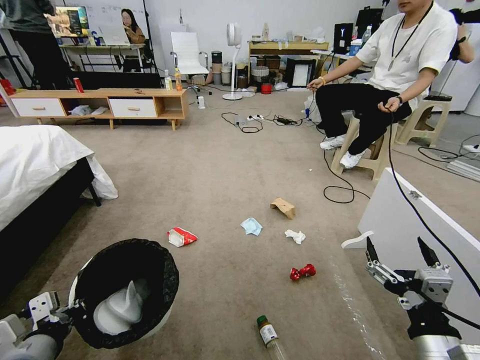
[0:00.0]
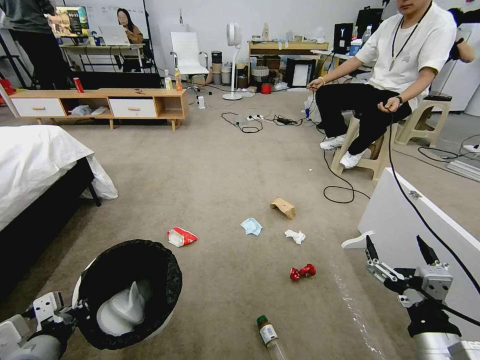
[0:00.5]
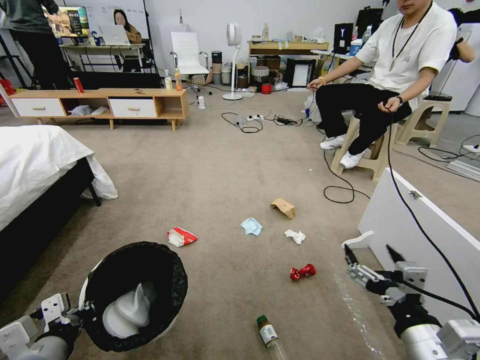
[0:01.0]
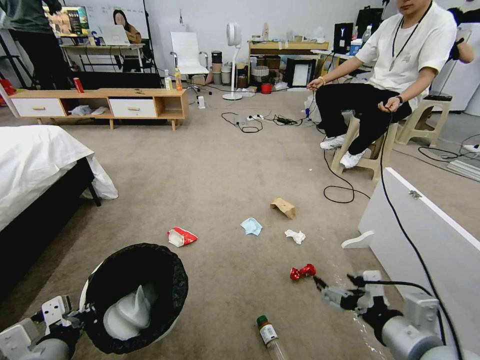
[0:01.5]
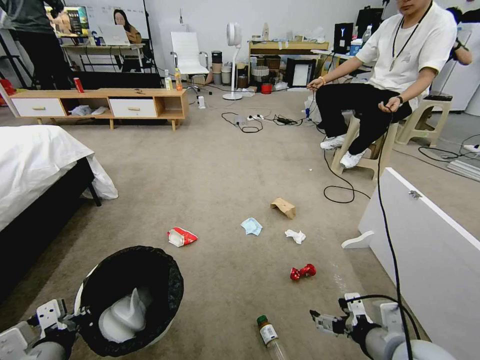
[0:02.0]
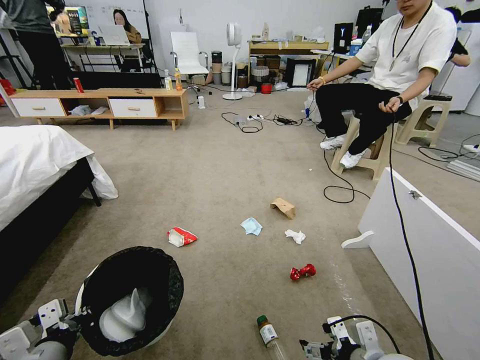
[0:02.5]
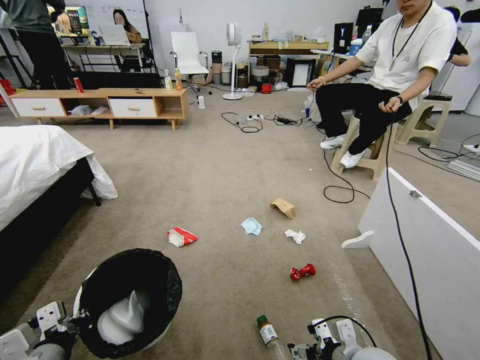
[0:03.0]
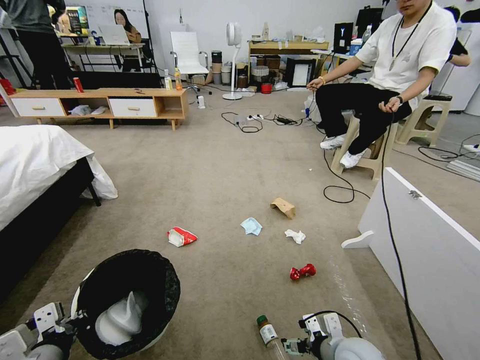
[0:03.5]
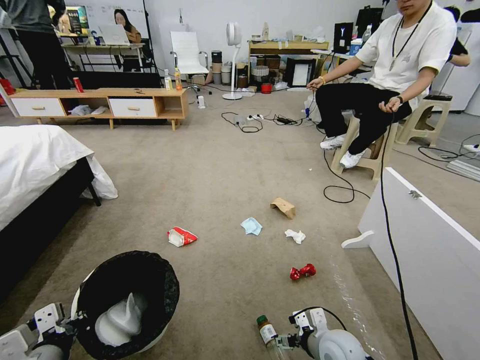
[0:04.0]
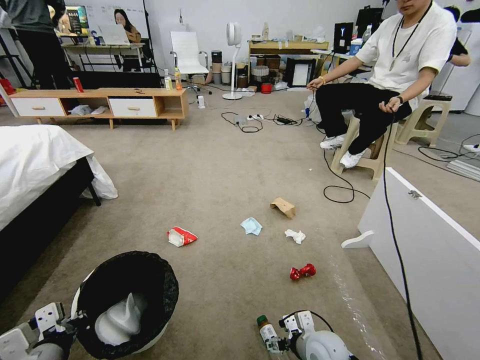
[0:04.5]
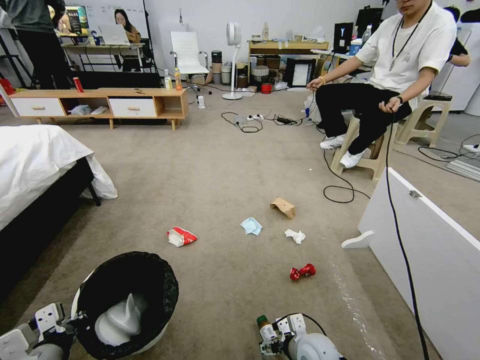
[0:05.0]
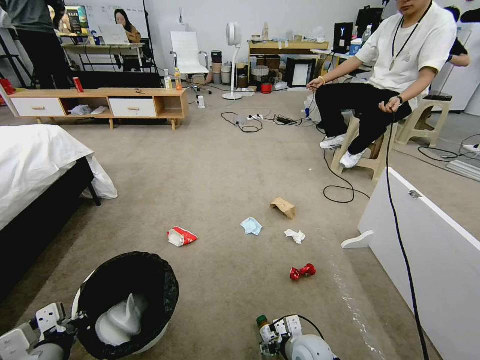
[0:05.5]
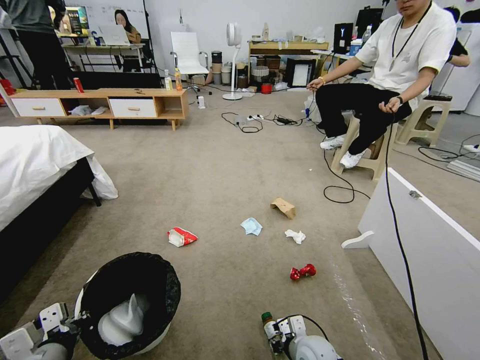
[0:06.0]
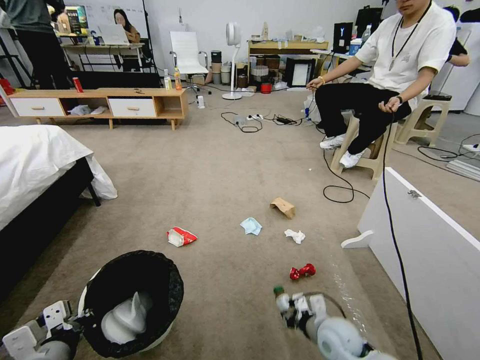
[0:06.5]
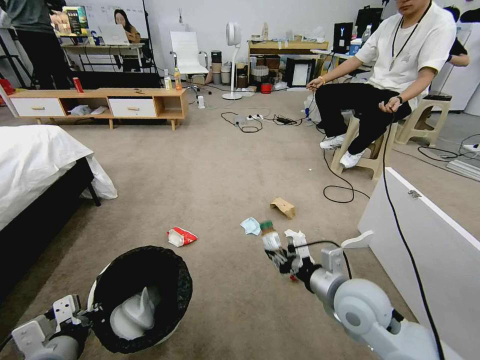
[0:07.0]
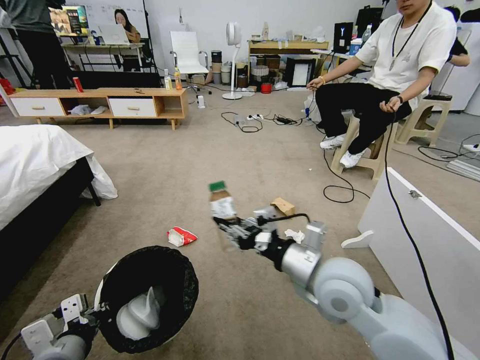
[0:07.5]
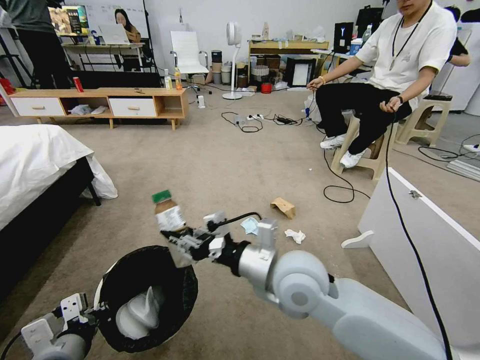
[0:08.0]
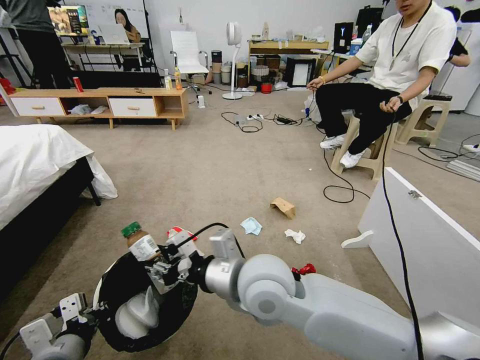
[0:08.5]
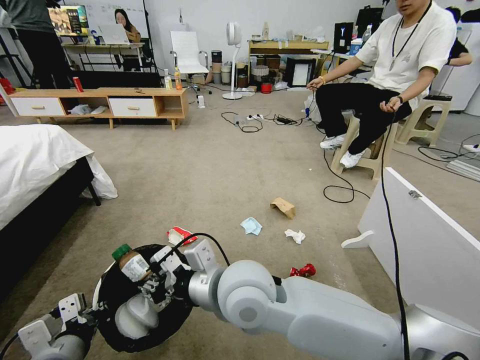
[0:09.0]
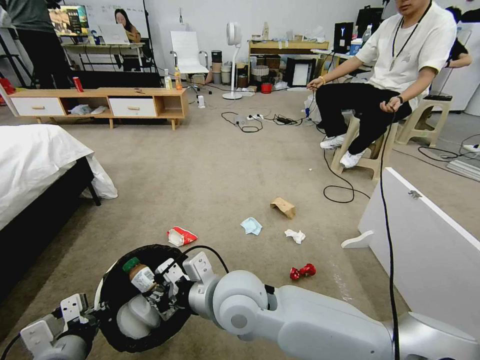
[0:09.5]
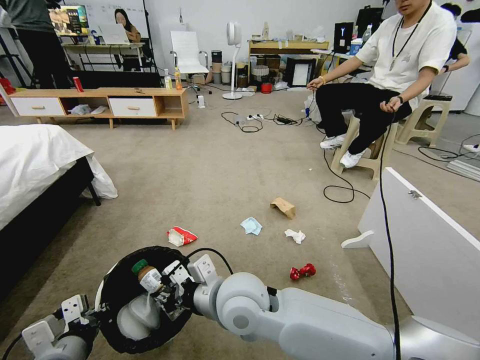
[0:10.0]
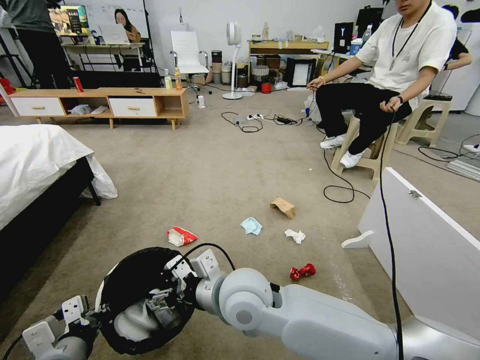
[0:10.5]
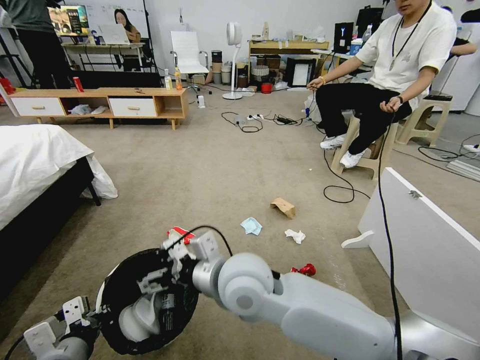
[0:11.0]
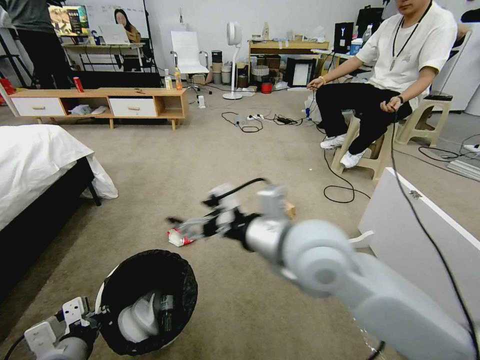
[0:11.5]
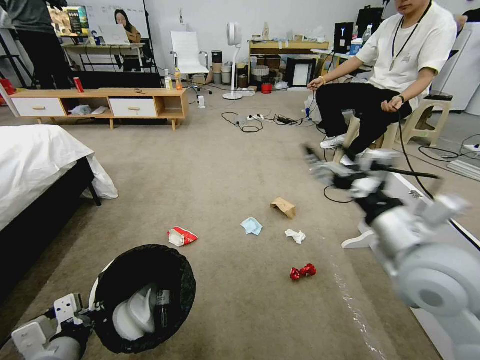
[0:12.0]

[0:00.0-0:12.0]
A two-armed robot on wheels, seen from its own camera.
Task of the whole recording: Pick up the trash bin and place the garbage on the floor into it.
0:02.0 to 0:04.0: The right gripper heads downward, forward and to the left, covering some 20 cm.
0:04.0 to 0:06.0: The right gripper heads downward, covering some 5 cm, and closes.
0:06.0 to 0:08.0: The right gripper travels upward by about 35 cm.
0:08.0 to 0:10.0: The right gripper moves to the left, some 10 cm.
0:10.0 to 0:12.0: The right gripper is displaced to the right and upward by roughly 30 cm, and opens its fingers.

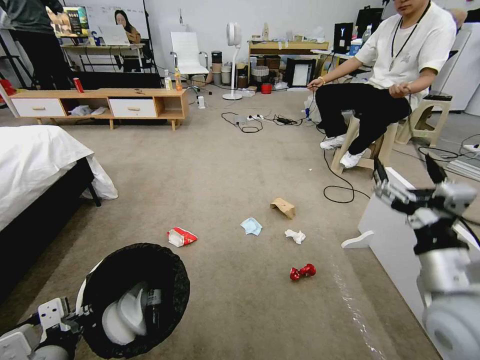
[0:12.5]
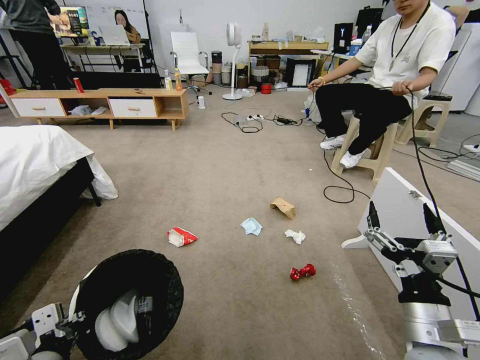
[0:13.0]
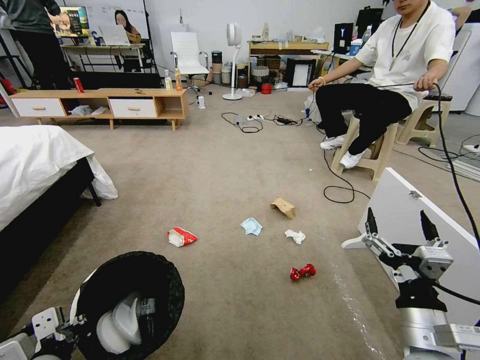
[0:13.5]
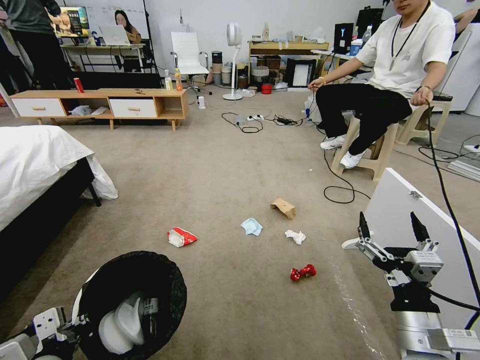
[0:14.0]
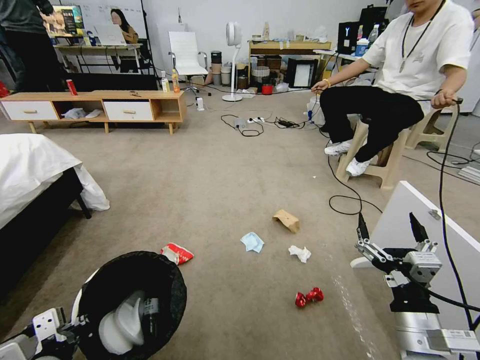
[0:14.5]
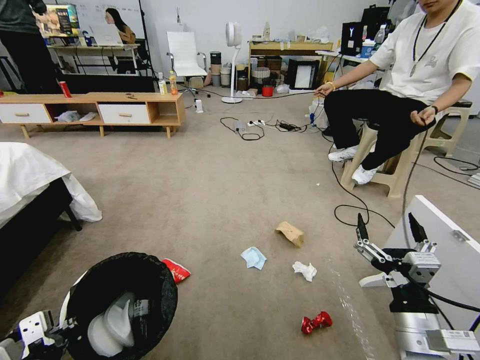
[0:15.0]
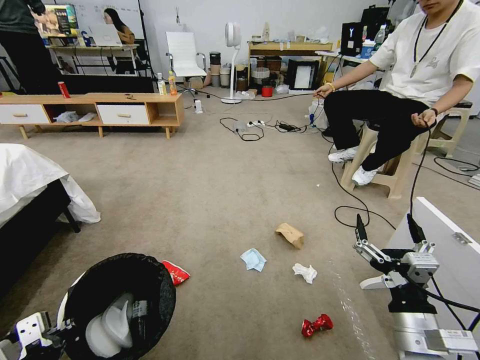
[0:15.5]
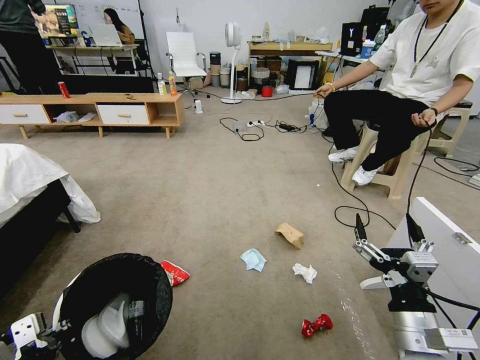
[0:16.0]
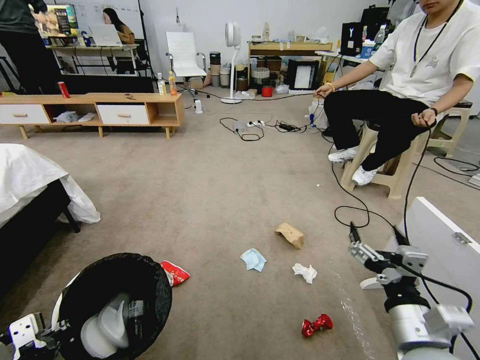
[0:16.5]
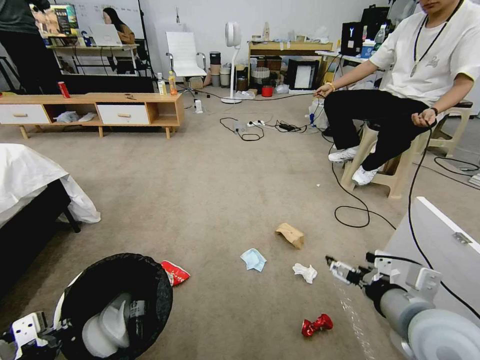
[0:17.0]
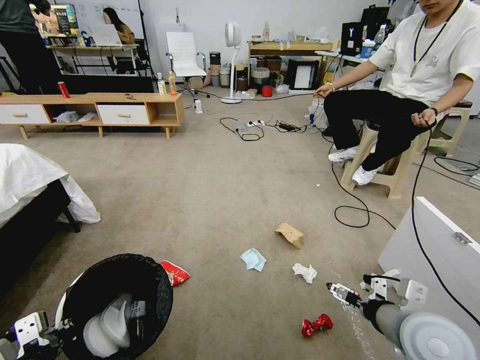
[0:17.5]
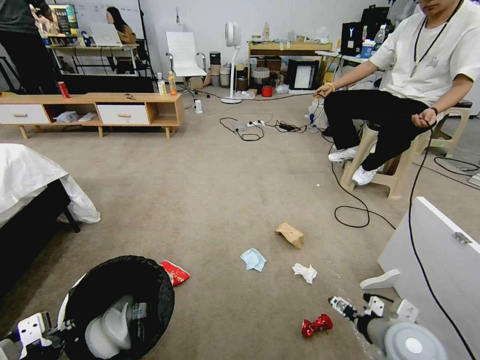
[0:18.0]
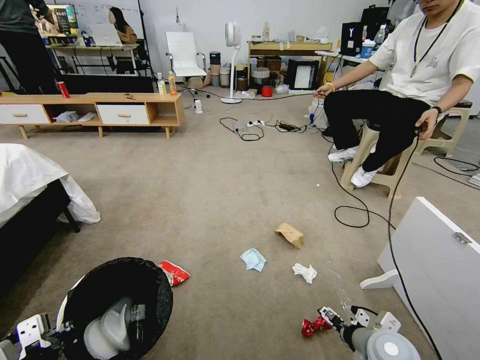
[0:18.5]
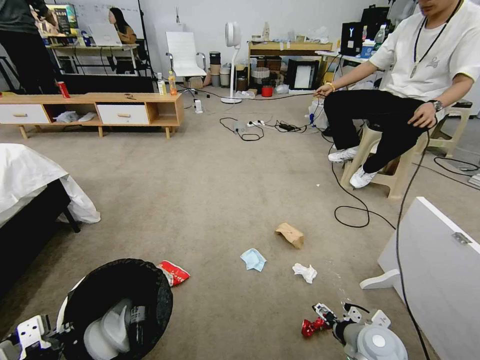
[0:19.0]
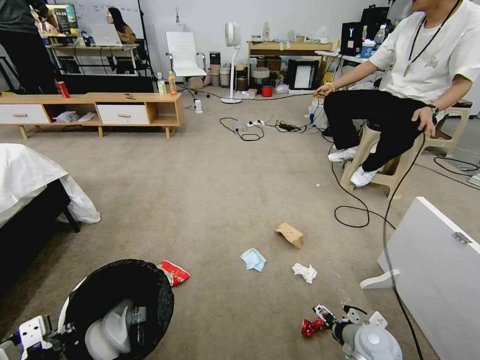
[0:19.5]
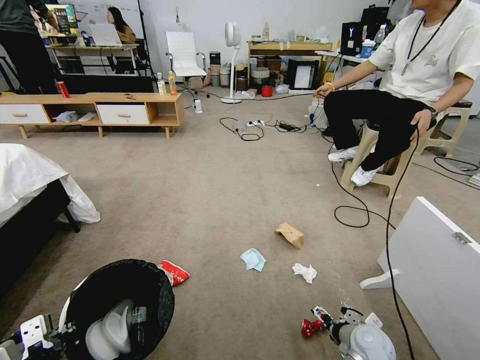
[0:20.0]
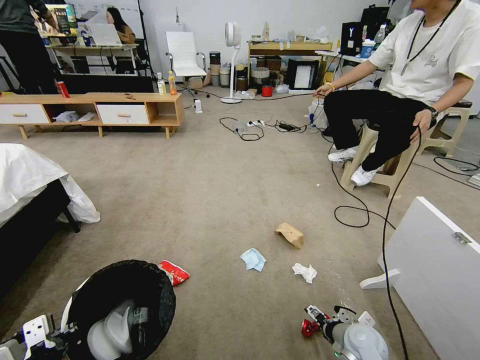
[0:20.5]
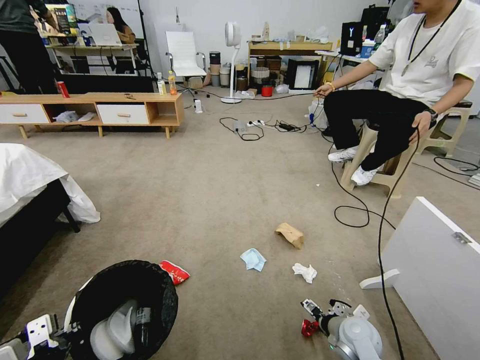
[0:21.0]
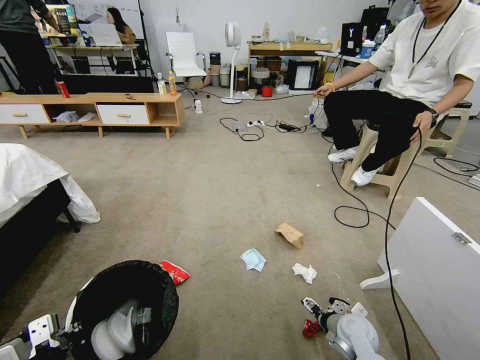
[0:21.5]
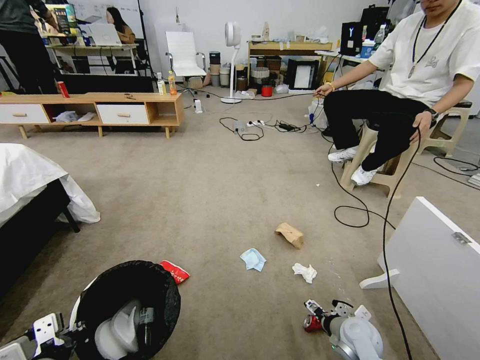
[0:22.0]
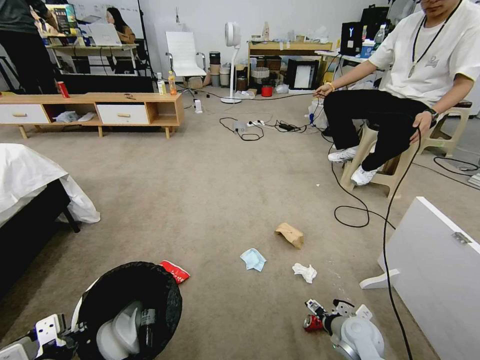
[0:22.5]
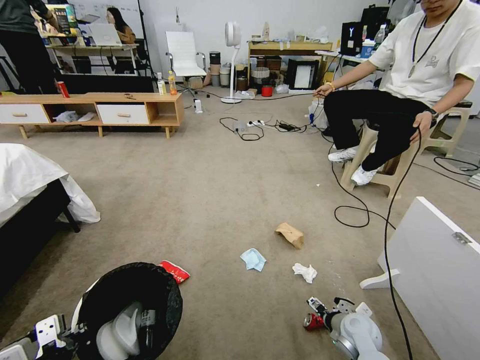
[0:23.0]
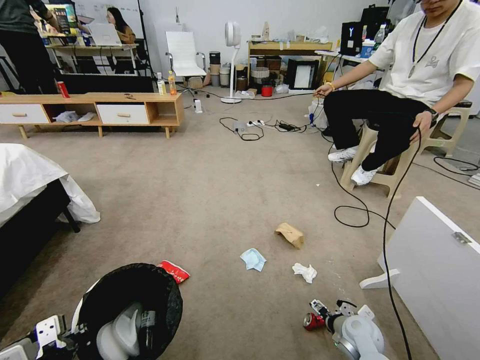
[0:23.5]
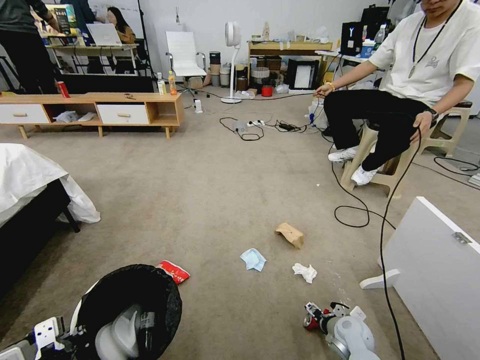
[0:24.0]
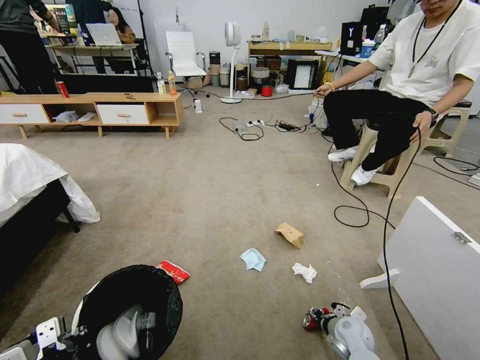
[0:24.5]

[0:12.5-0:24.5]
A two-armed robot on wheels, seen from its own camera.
Task of the whole recording: Pick up the trash bin and place the garbage on the floor into it.
0:12.5 to 0:14.5: The right gripper goes approximately 10 cm downward.
0:16.5 to 0:18.5: The right gripper goes some 15 cm downward and forward.
0:18.5 to 0:20.5: The right gripper heads downward, covering some 10 cm.
0:20.5 to 0:22.5: The grippers stay close to where they were, moving slightly.
0:22.5 to 0:24.5: The right gripper closes its fingers.

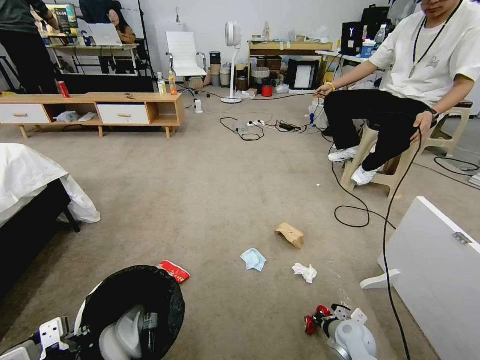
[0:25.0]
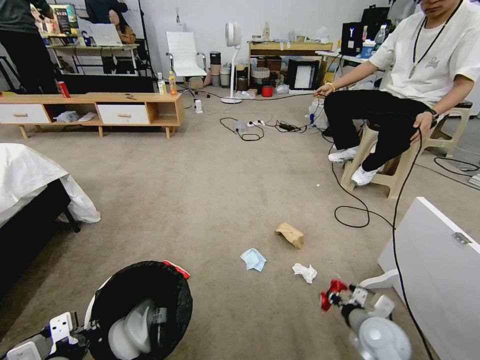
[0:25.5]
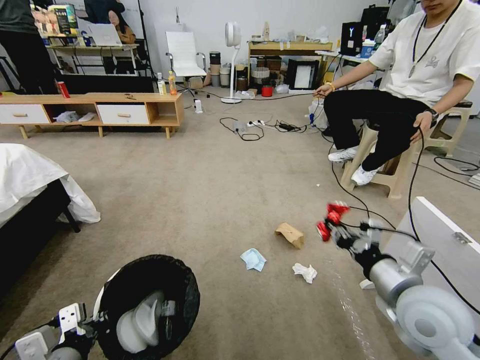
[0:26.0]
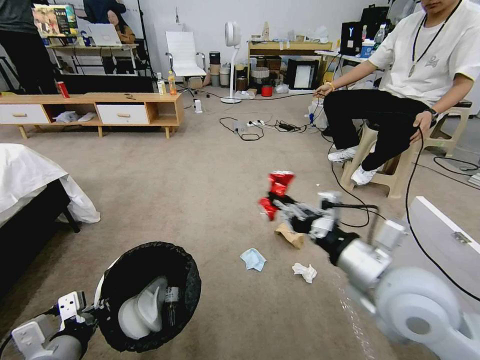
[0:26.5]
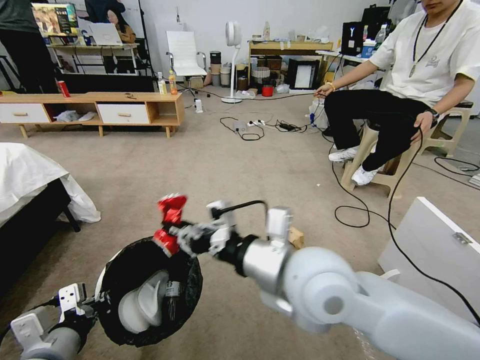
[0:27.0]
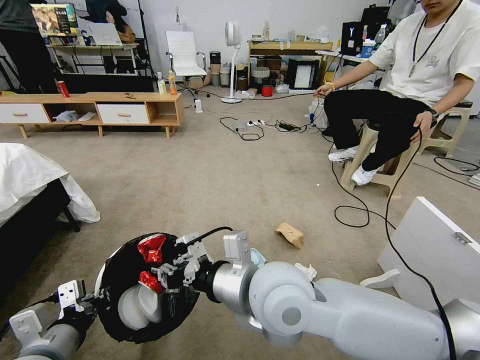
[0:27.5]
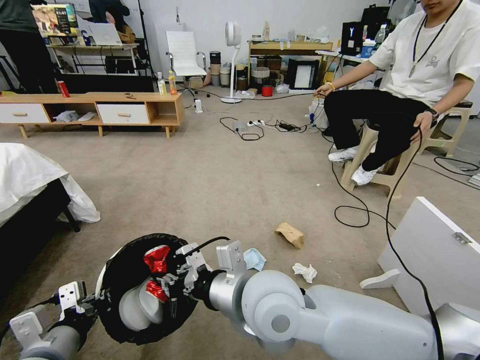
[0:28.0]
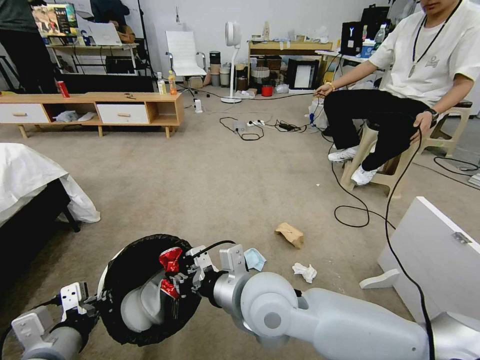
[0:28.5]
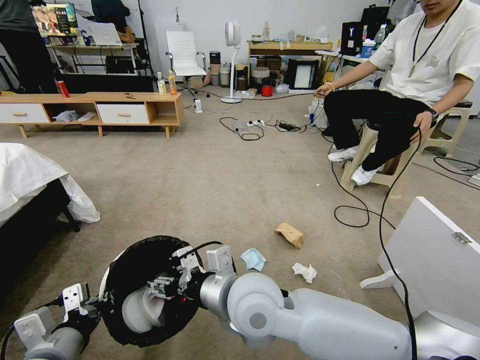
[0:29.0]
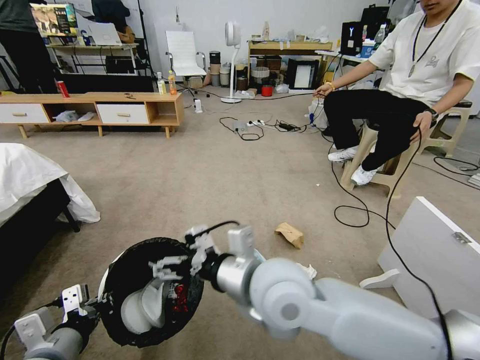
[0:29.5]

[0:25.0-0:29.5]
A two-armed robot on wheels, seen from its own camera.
Task of the whole recording: Pick up the trash bin and place the garbage on the floor into it.
0:25.0 to 0:27.0: The left gripper changes place by approximately 5 cm. Meanwhile the right gripper travels upward and to the left by roughly 40 cm.
0:27.0 to 0:29.5: The right gripper opens.
